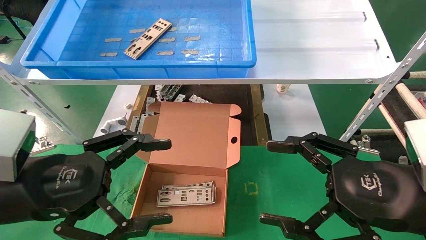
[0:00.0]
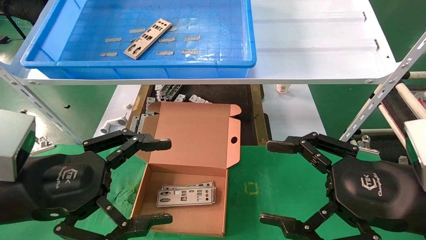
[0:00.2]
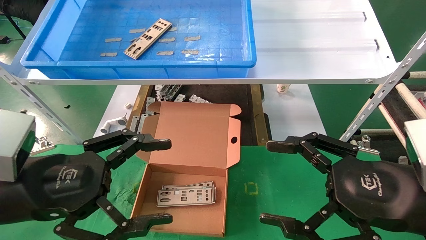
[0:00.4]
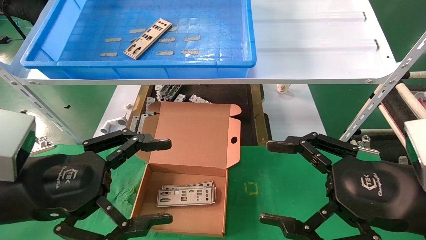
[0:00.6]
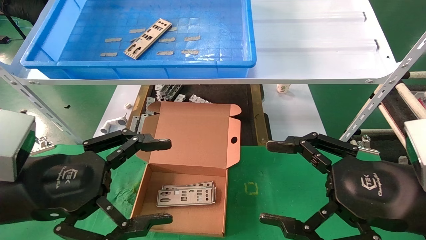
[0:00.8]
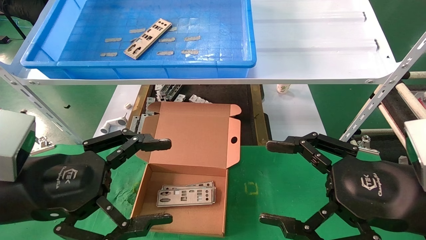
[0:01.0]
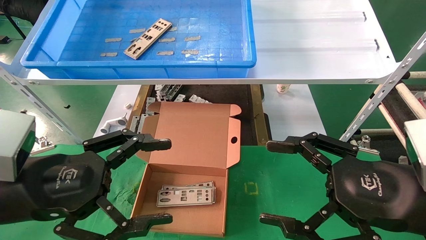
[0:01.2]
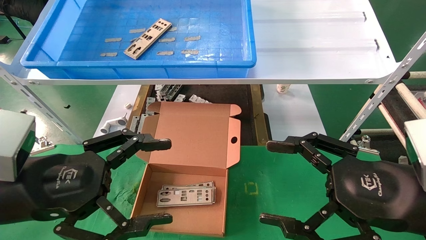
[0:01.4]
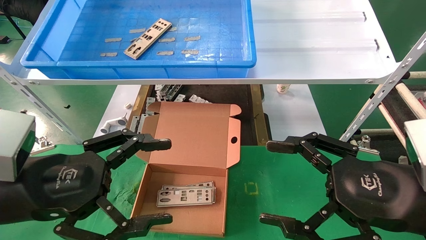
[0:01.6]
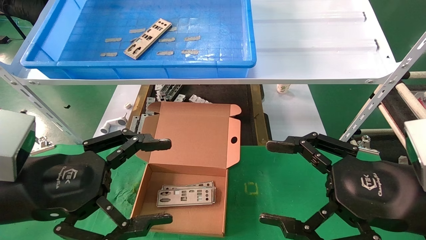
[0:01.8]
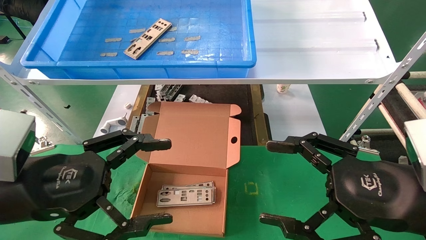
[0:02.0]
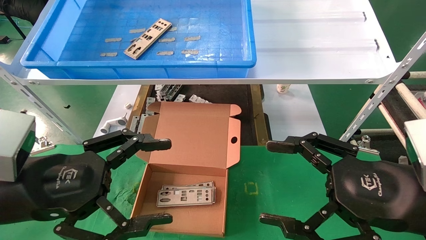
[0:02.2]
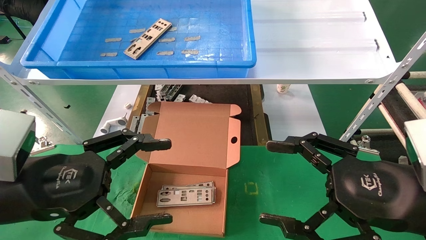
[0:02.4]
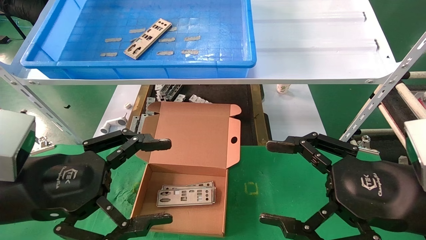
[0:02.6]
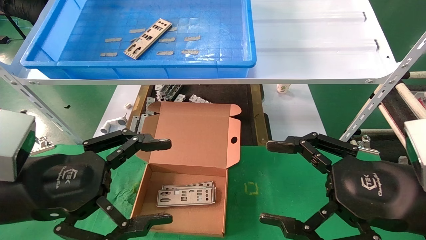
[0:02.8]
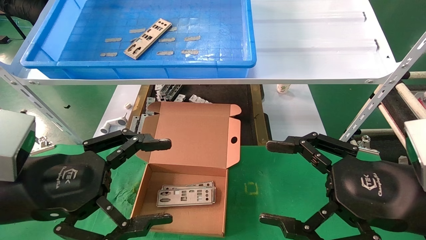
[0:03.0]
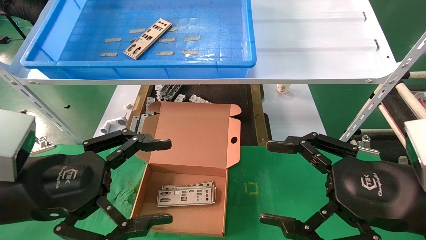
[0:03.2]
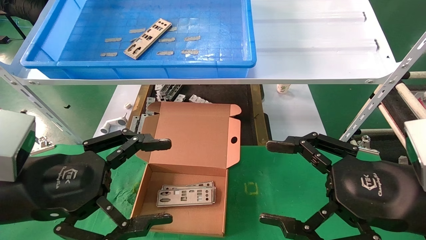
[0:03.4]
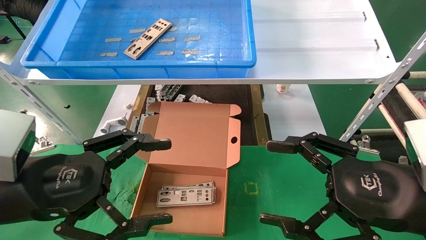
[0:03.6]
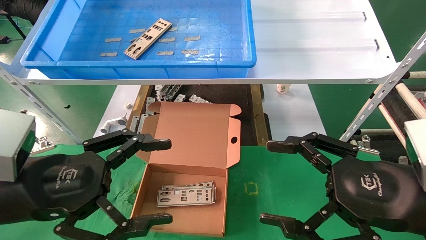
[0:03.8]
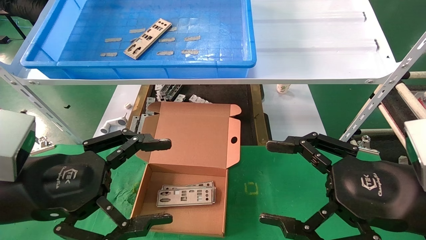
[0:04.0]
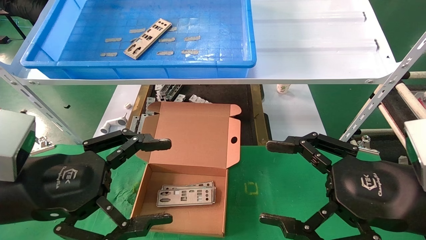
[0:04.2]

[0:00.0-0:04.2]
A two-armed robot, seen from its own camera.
Task of the whole recording: pick up the parts on the tray and put them in the cardboard box.
0:00.0 to 0:04.2: Neither gripper changes place.
